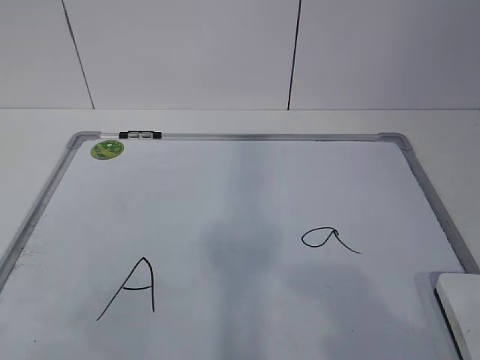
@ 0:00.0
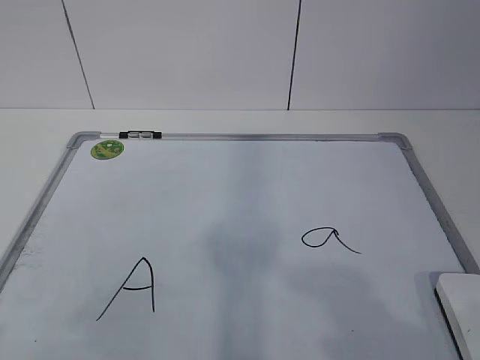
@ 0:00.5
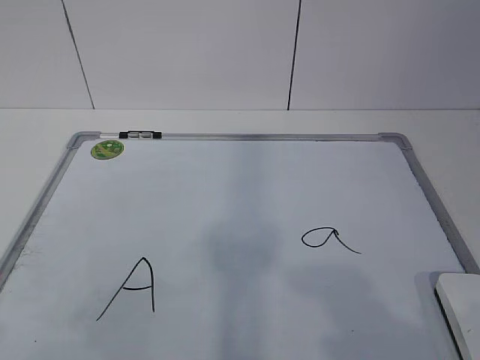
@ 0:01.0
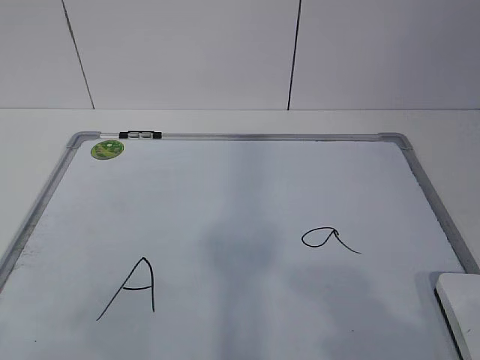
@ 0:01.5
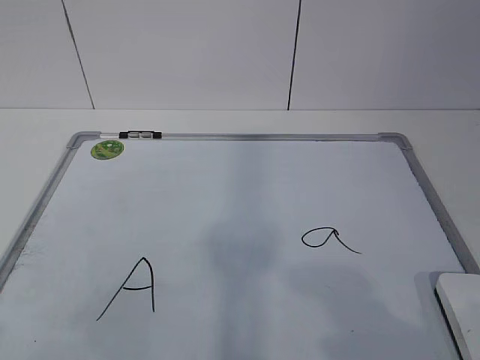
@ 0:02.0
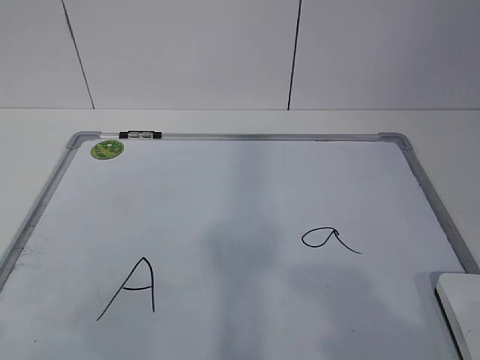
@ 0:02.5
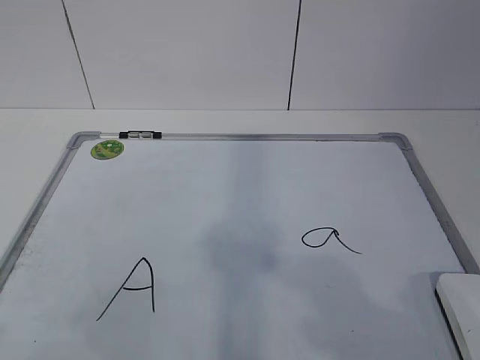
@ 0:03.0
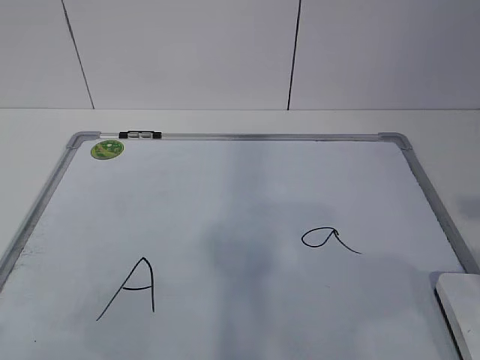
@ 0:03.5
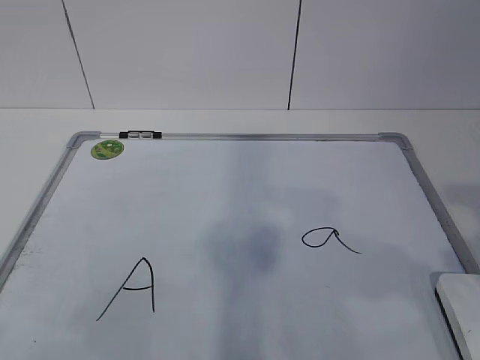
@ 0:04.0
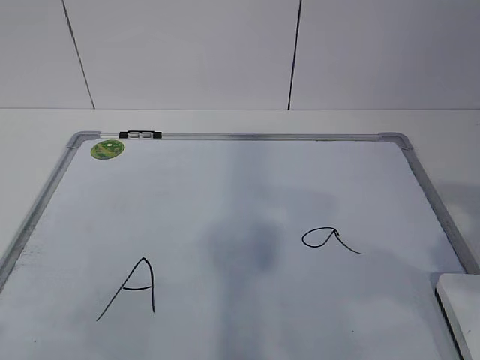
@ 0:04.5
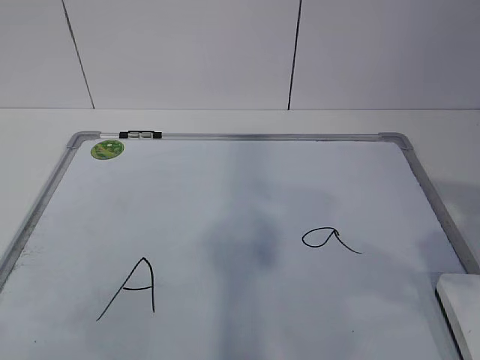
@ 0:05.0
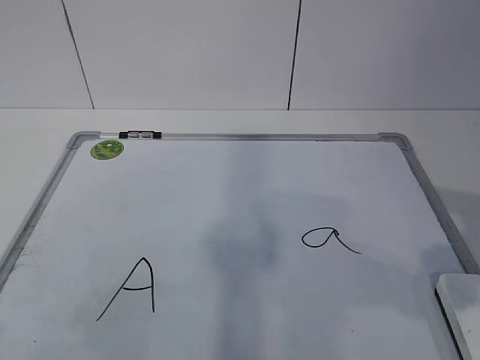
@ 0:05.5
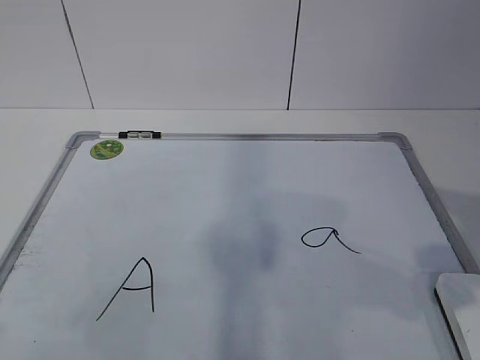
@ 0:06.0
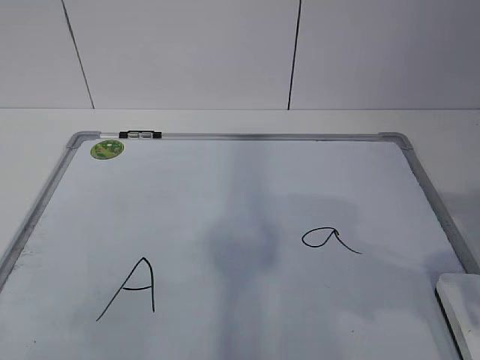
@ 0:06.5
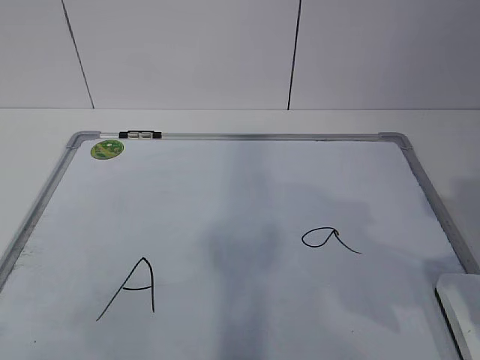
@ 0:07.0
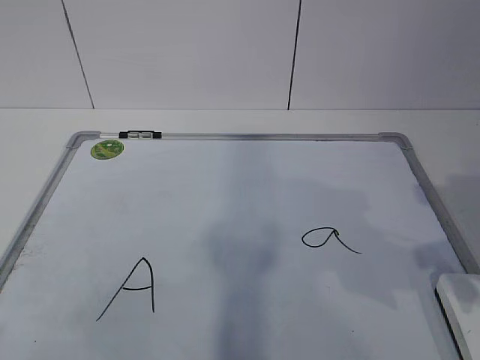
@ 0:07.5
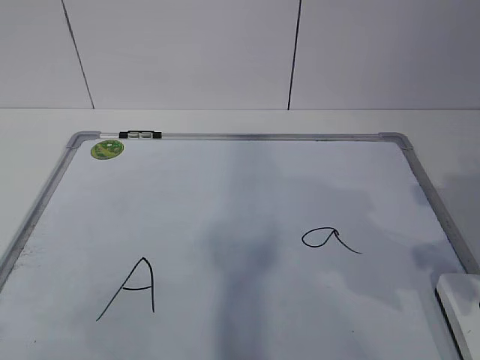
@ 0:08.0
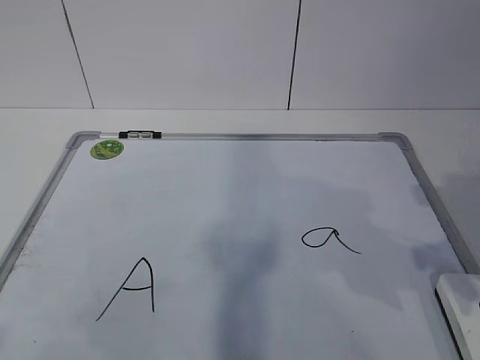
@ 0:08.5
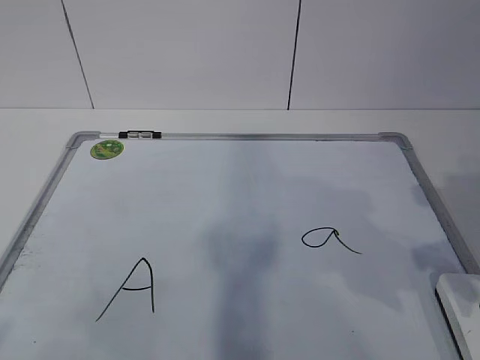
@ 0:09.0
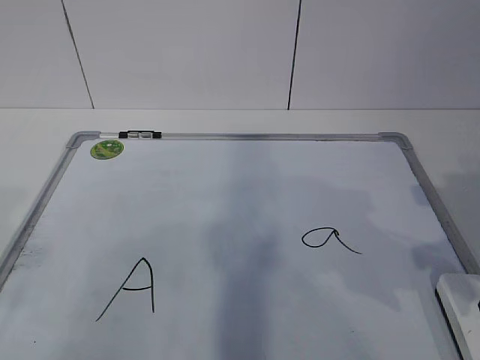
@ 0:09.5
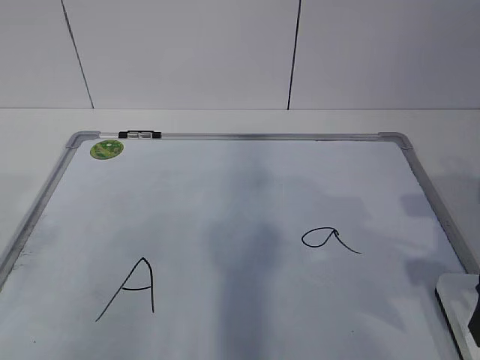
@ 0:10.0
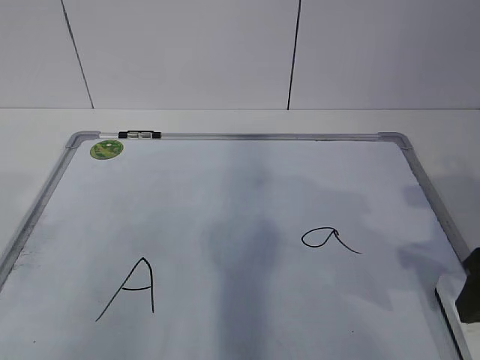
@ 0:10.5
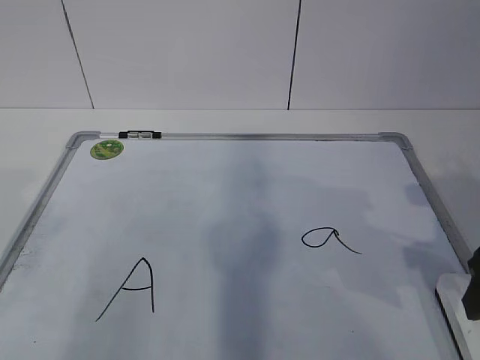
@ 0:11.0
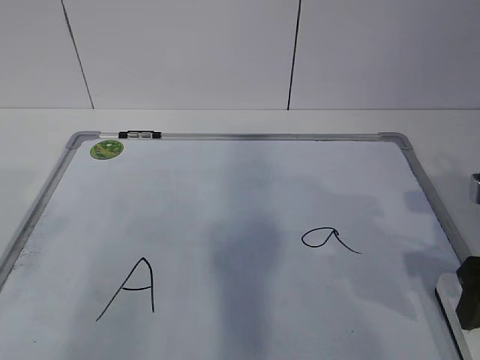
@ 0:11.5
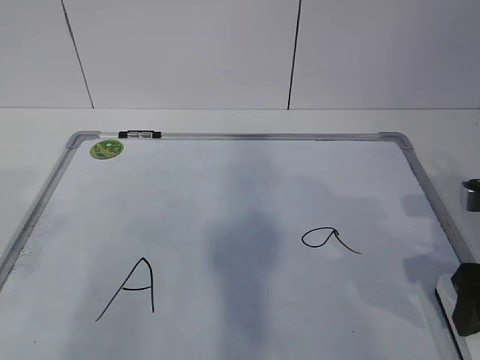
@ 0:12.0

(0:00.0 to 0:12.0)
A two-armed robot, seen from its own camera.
Task of the whole recording: pick up the eraser on the blackboard and erase the letter "a".
0:10.0 - 0:12.0: The grippers move only a little.

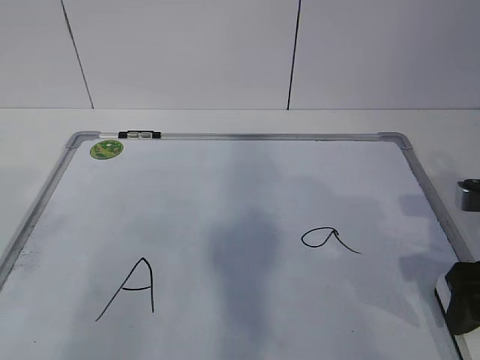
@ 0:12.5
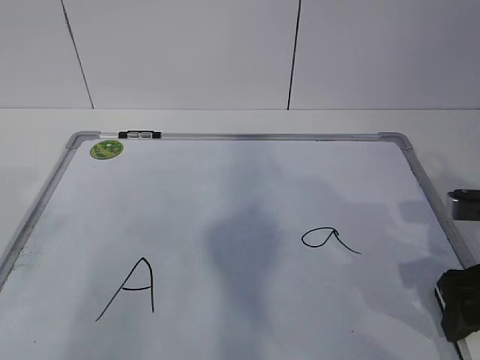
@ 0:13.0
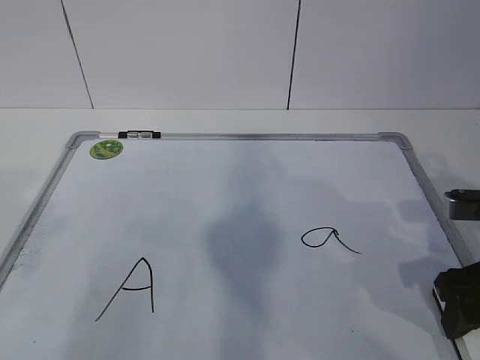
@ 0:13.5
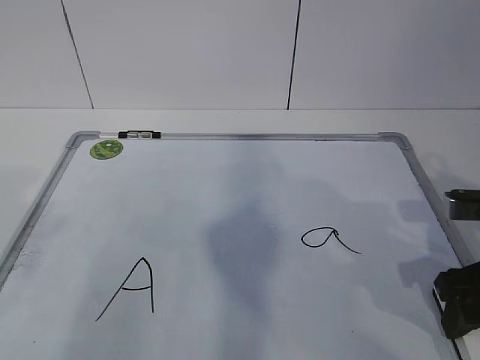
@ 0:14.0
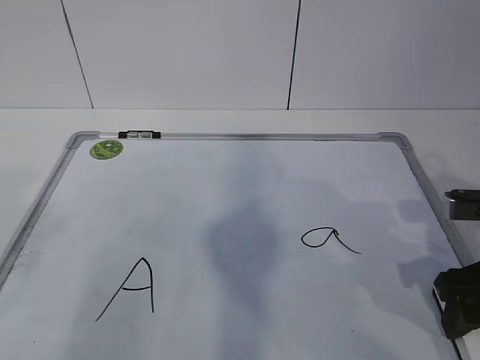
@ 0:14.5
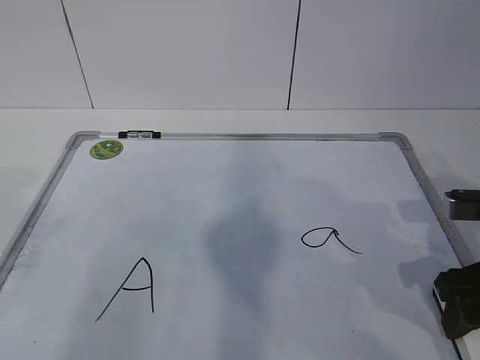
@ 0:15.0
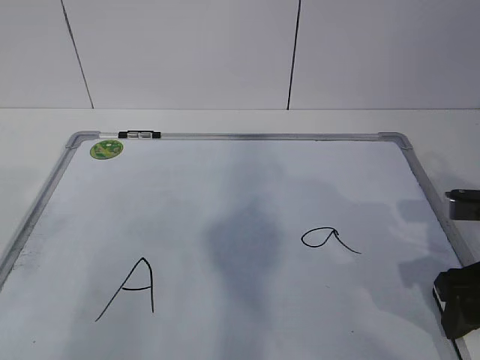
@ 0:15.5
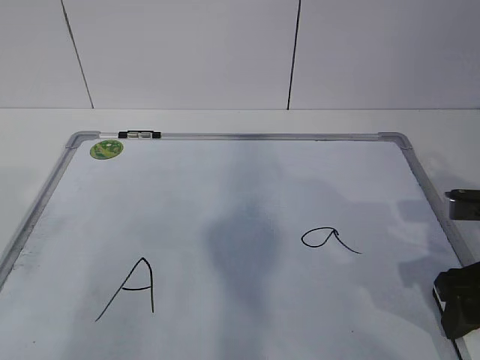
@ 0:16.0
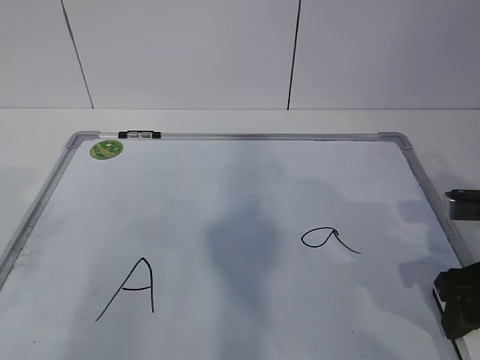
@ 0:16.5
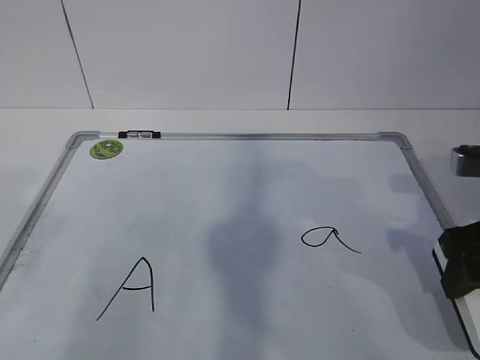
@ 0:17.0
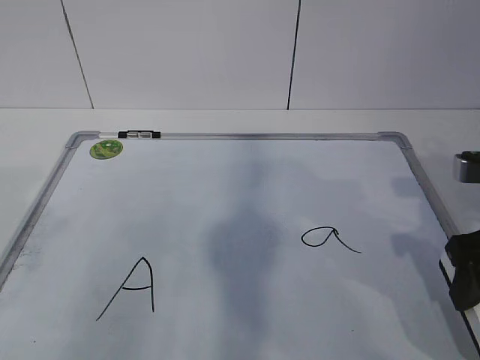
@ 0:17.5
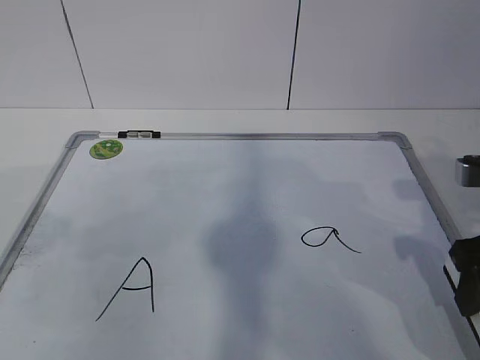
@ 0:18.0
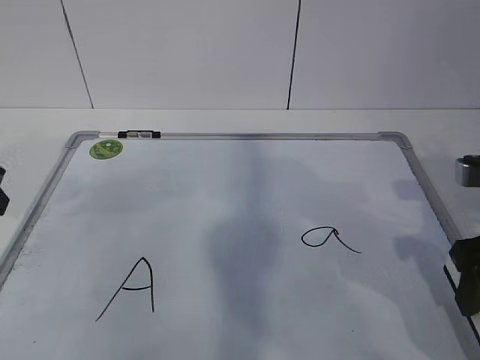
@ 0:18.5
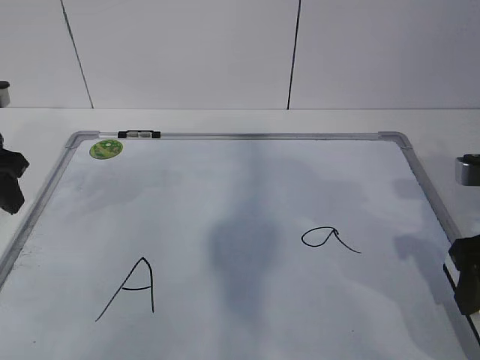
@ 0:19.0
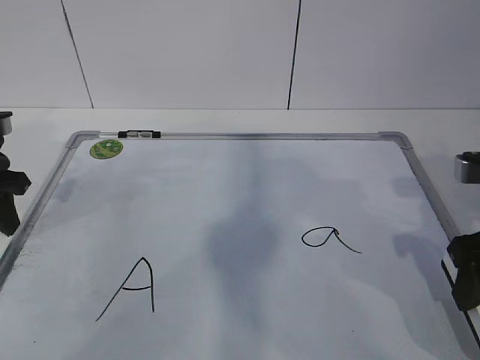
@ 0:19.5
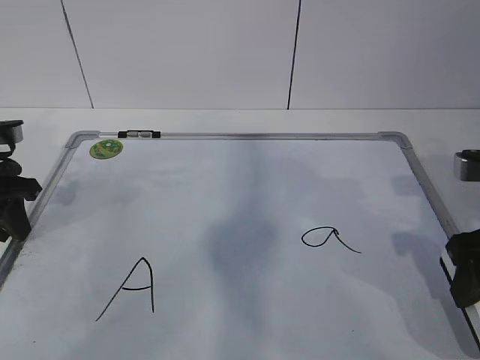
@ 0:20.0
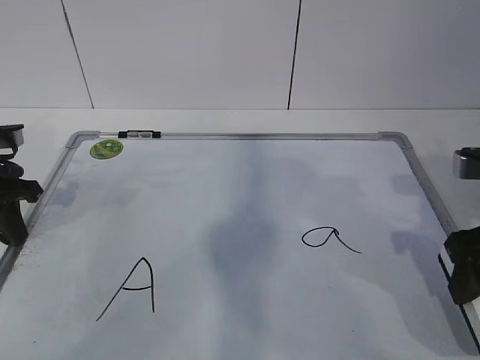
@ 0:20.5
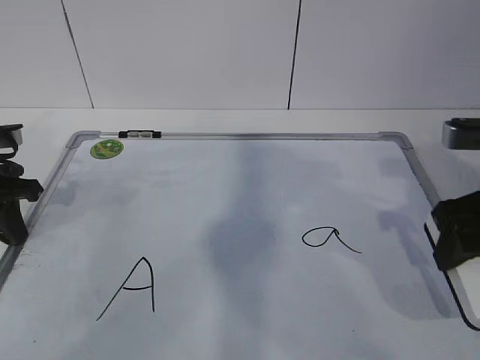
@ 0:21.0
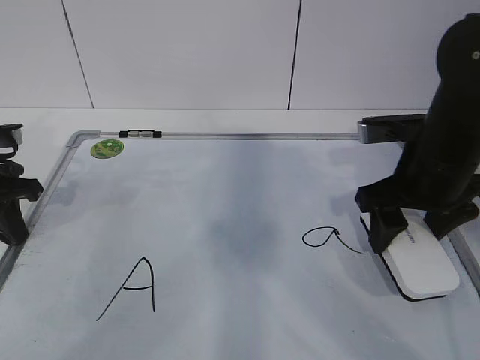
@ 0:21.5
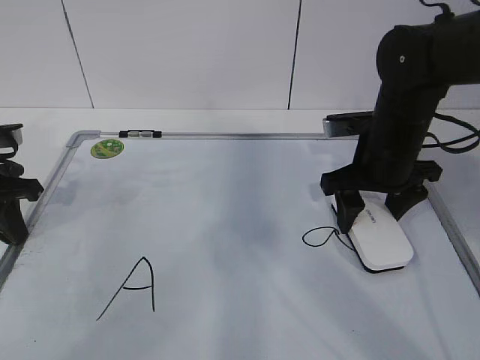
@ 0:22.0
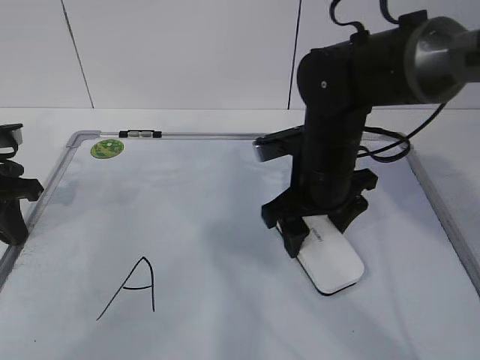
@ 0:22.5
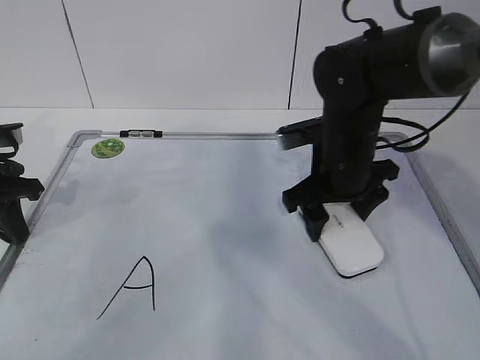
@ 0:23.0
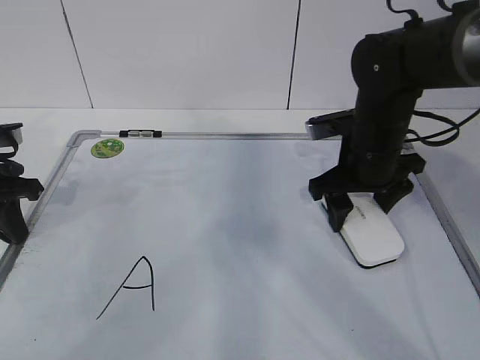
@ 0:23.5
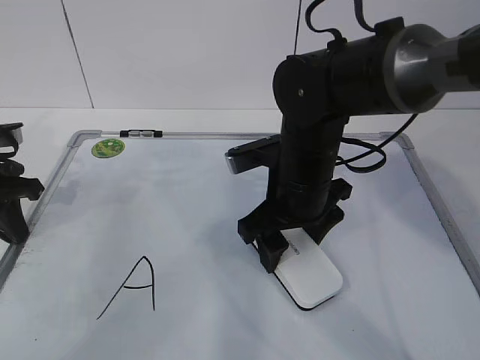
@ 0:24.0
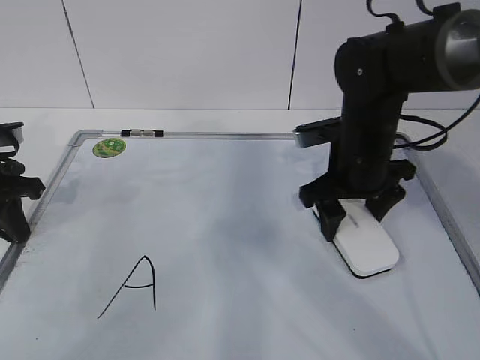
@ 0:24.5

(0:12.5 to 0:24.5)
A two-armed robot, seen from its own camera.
Task of the whole recording: pick up the eraser on the blackboard and erase the letter "a".
Step, 0:20.5 - 0:22.5: Put down the eraser with your right hand.
0:12.5 - 0:14.5: The right gripper closes up.
0:14.5 - 0:16.5: Both grippers stay put.
0:18.5 - 0:20.5: The left gripper goes about 10 cm forward and downward, and closes its fingers.
0:20.5 - 0:22.5: The right gripper travels to the left and forward by about 20 cm.
0:22.5 - 0:24.5: The right gripper swings left and right, roughly 10 cm each way, with 2 reversals.

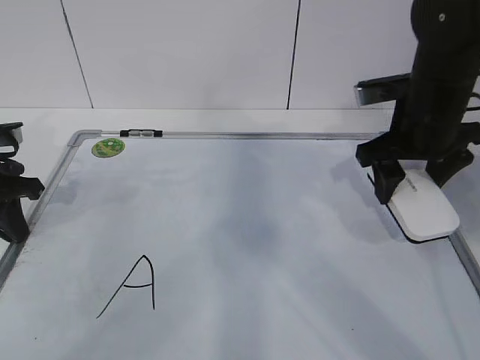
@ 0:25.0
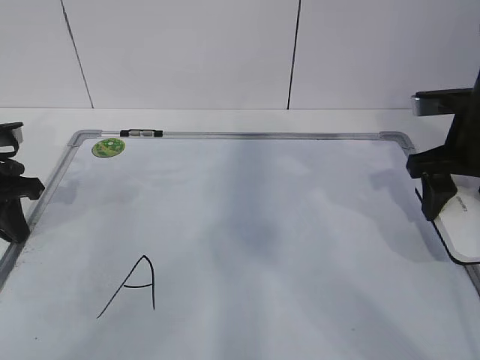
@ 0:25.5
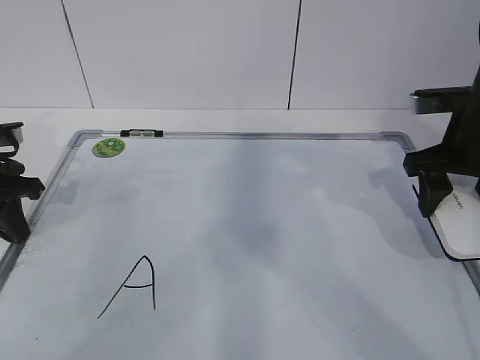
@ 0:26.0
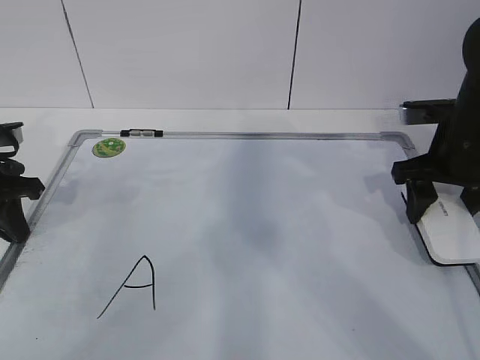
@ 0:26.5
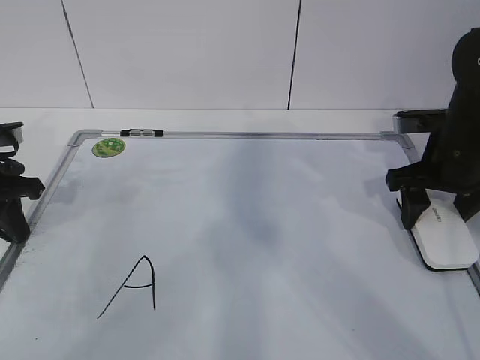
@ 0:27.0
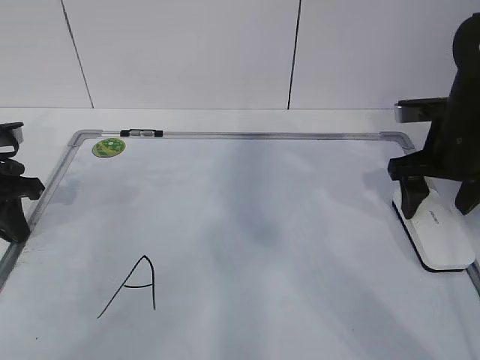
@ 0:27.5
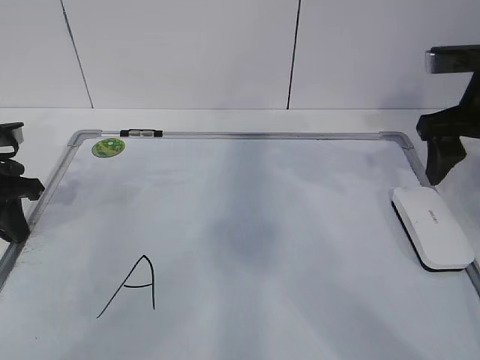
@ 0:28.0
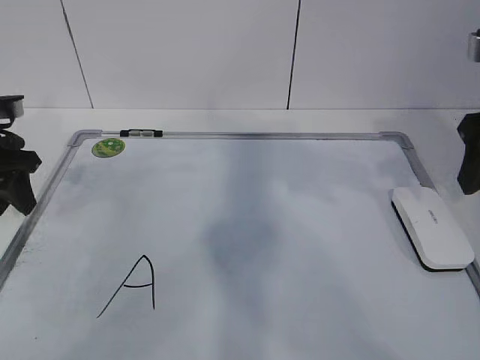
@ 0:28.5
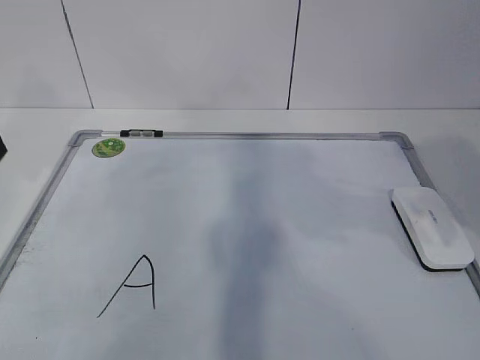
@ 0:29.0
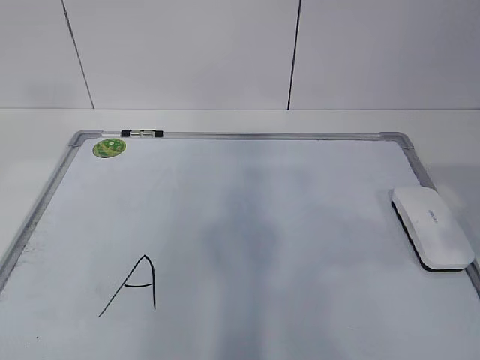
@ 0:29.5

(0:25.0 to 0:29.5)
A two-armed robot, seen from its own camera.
Task of the whole recording: pick up the eraser on the blackboard and erase the letter "a".
0:25.0 - 0:27.0: The right gripper is displaced to the right by about 5 cm.
0:27.0 - 0:29.5: The right gripper goes about 25 cm backward and upward, and opens and closes again; the left gripper travels upward and backward by roughly 30 cm, and opens up.
